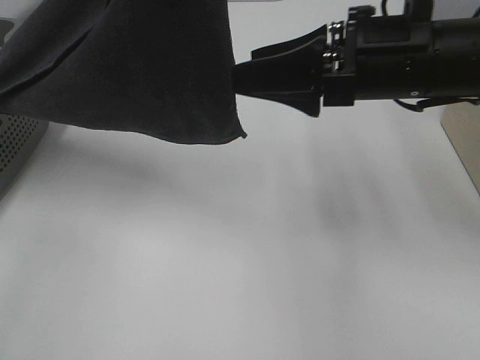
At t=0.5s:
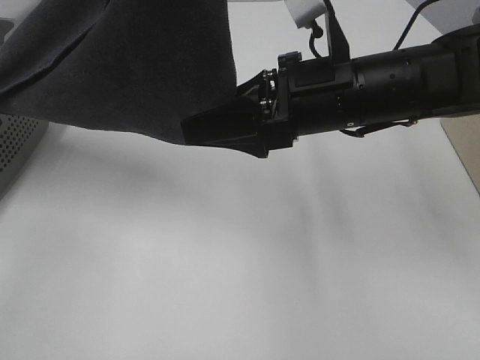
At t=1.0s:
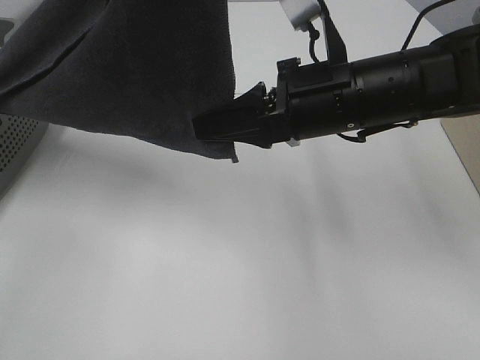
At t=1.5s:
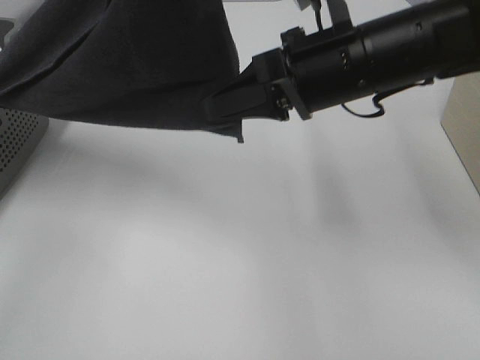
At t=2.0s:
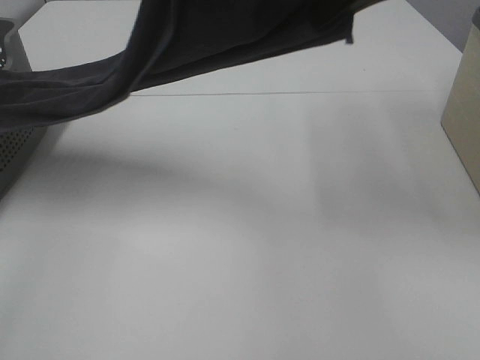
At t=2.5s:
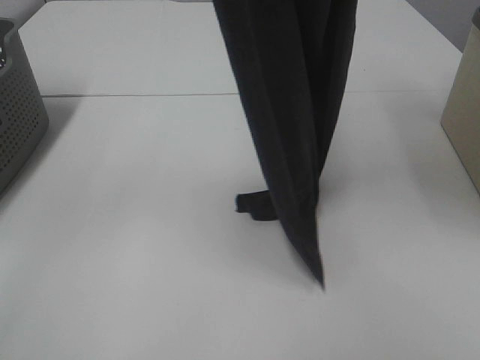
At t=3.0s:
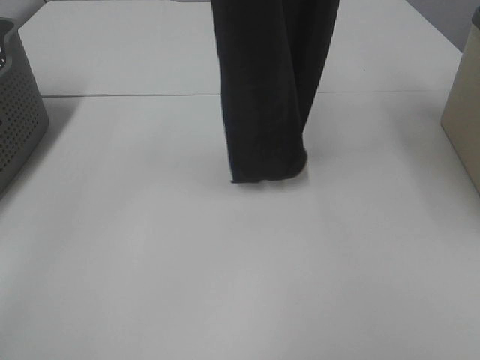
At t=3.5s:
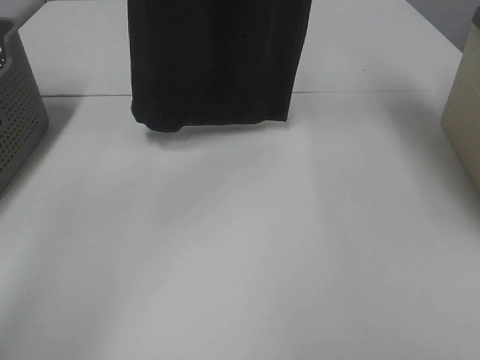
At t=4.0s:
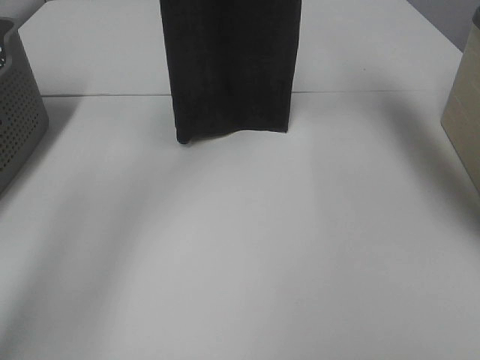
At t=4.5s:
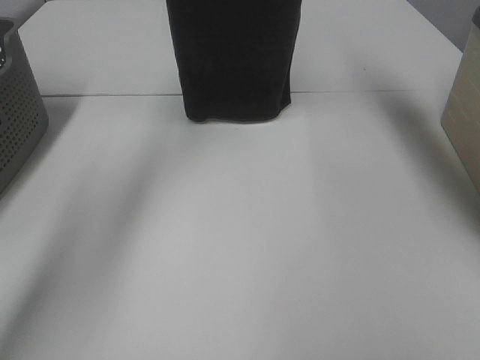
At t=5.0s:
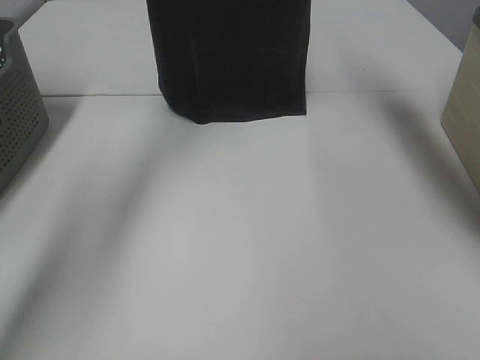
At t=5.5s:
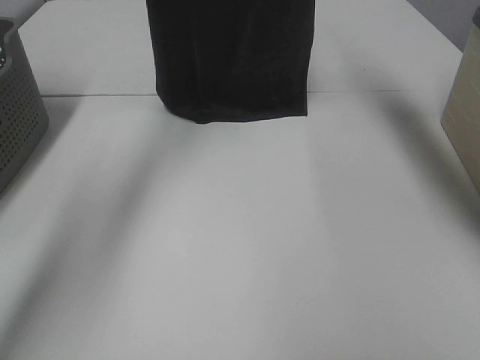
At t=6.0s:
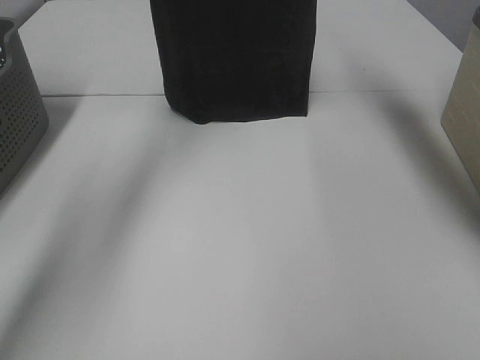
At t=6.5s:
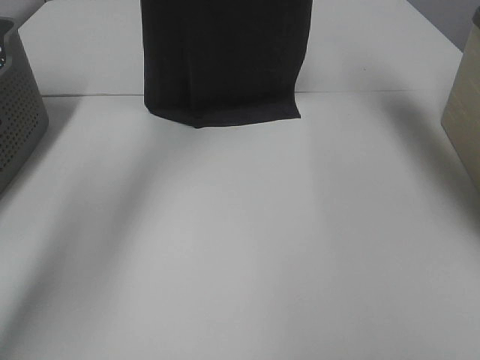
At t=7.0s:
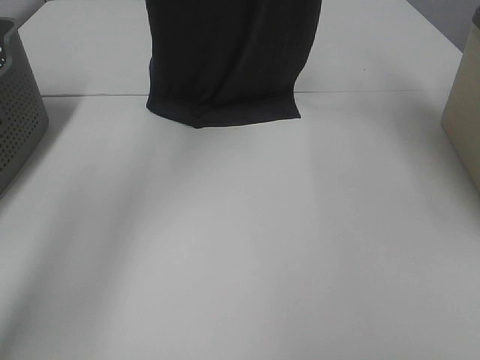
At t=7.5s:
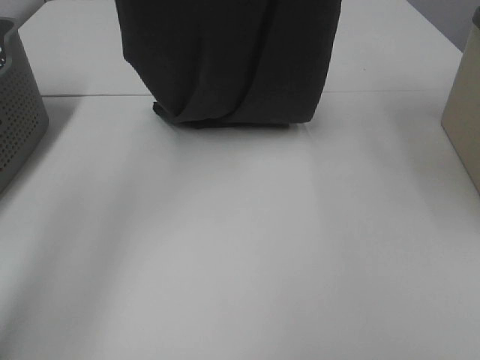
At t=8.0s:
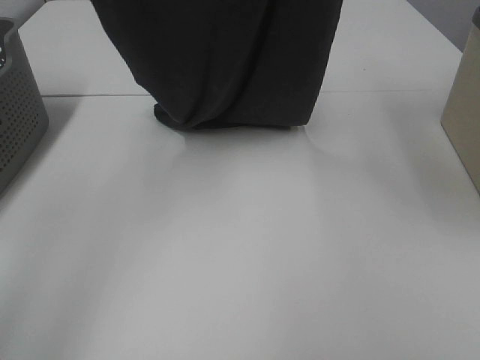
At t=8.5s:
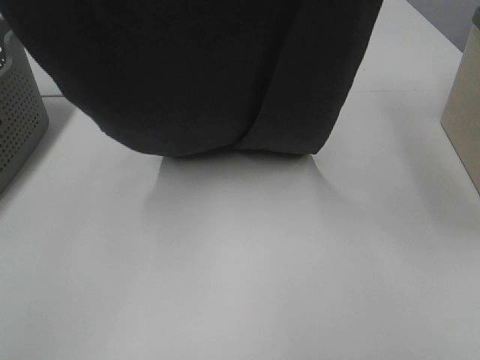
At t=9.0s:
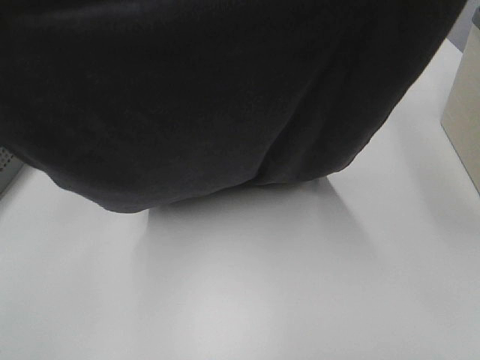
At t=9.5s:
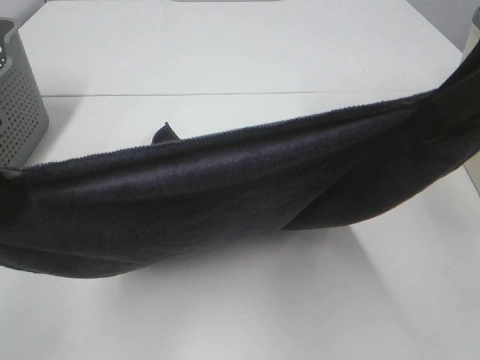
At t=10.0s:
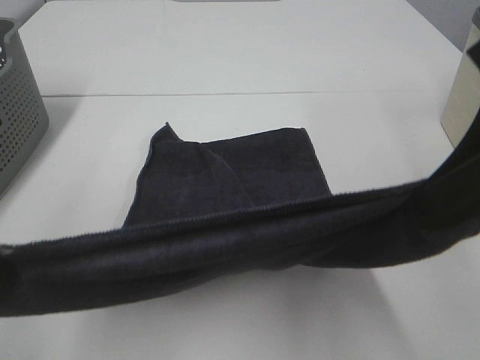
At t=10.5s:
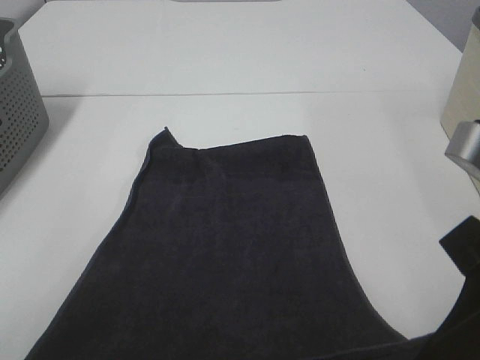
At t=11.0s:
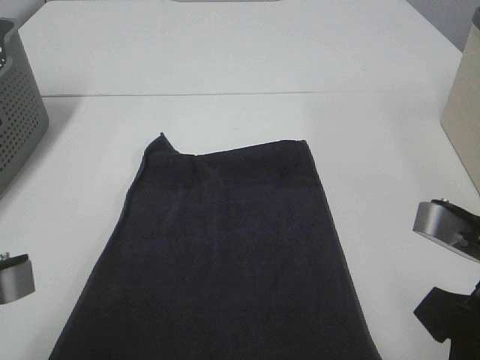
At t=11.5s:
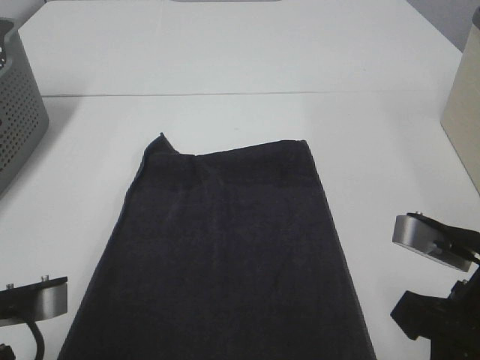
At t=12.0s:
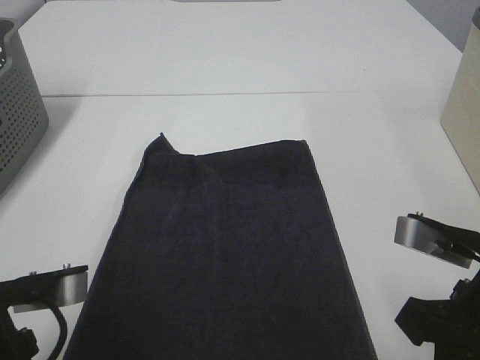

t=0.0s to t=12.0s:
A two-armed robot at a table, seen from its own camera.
Task of the whole recording: Remove the towel and place it.
Step, t=0.0s to t=2.0s: Right hand: grab a corner of the grey towel and straighten it.
Step, t=2.5s to t=8.5s: Left hand: spread the grey towel flat on the table.
Step, t=2.5s to t=8.5s: Right hand: spread the grey towel flat on the table.
t=0.0s to t=2.0s: The right gripper shifts approximately 15 cm upward, and closes up.
t=2.0s to t=4.0s: The right gripper moves forward and upward, some 20 cm; the left gripper shifts approximately 25 cm forward.
t=4.0s to t=6.0s: There are only small adjustments of the grippers.
t=6.0s to t=8.0s: Both grippers move backward, roughly 15 cm.
t=8.0s to t=10.0s: The grippers both shift backward and downward by roughly 25 cm.
t=10.0s to t=12.0s: The grippers both shift downward by some 15 cm.

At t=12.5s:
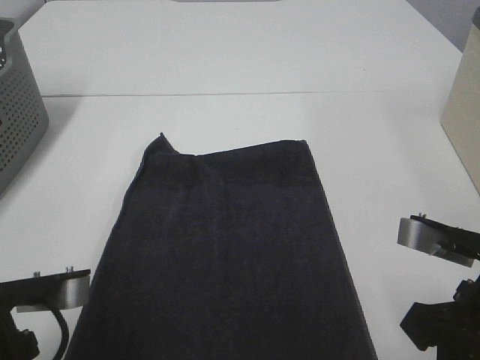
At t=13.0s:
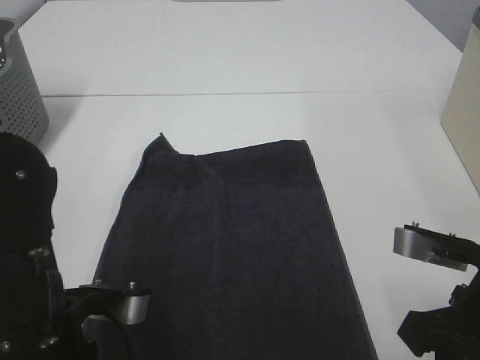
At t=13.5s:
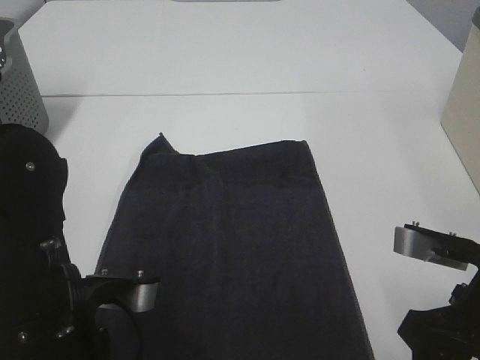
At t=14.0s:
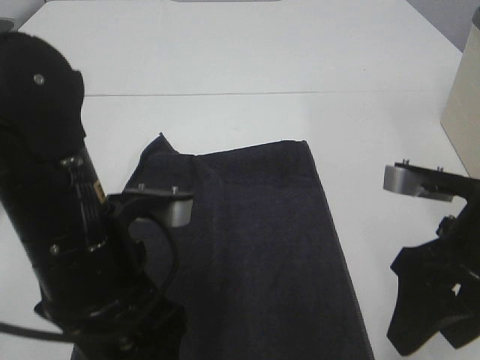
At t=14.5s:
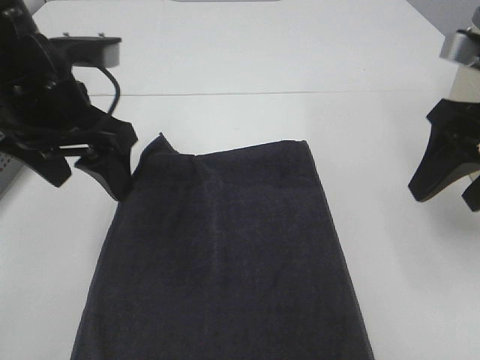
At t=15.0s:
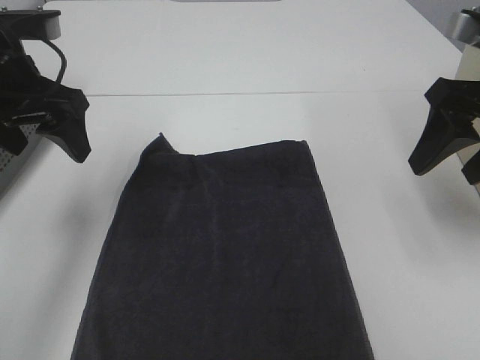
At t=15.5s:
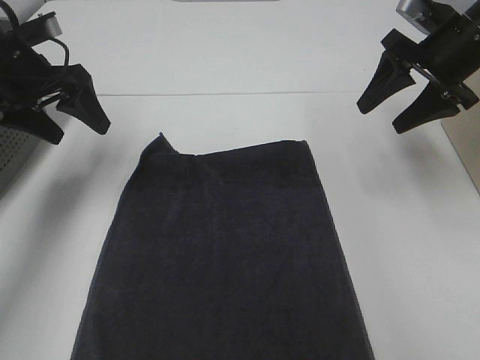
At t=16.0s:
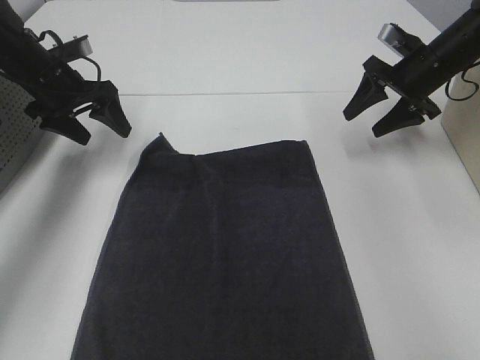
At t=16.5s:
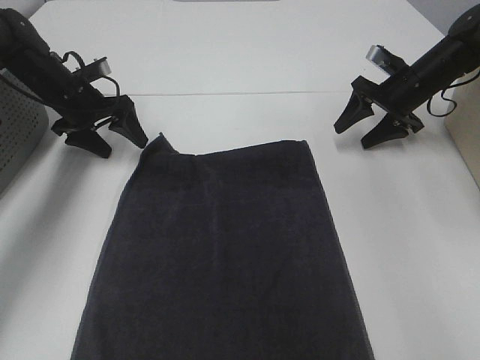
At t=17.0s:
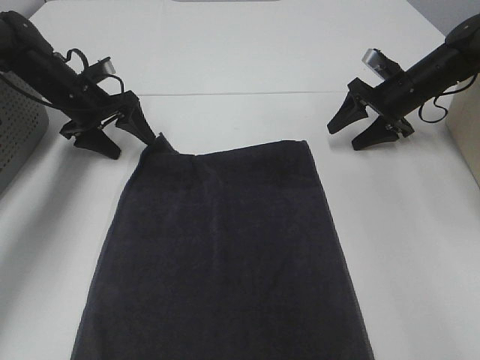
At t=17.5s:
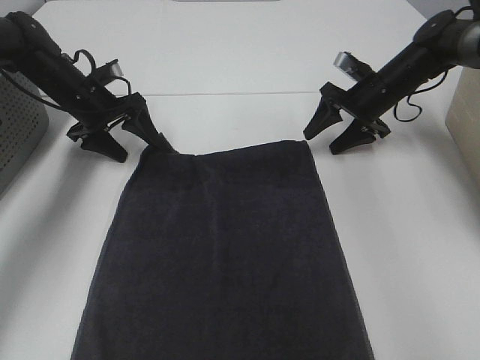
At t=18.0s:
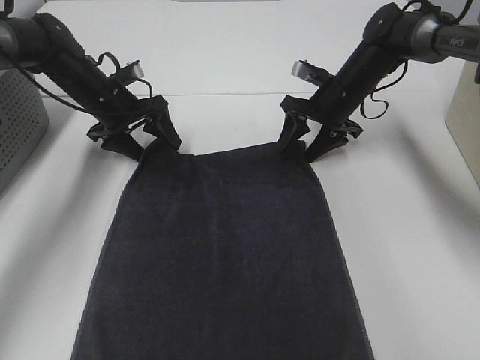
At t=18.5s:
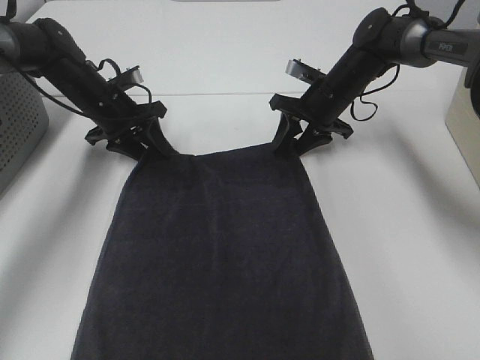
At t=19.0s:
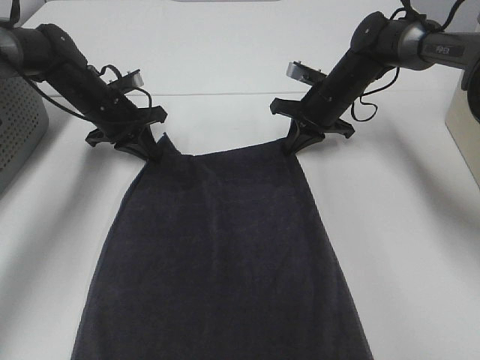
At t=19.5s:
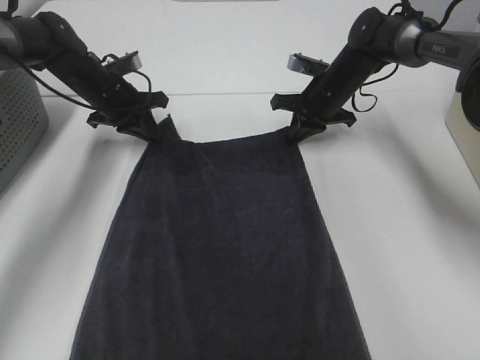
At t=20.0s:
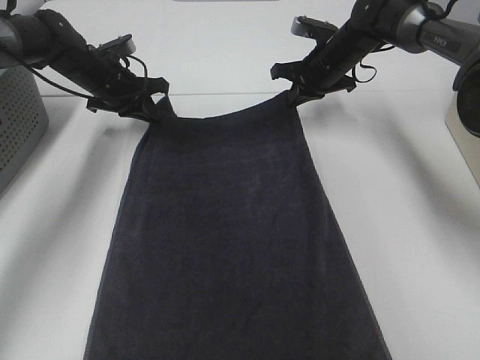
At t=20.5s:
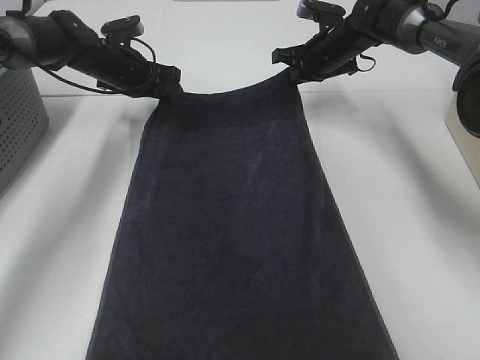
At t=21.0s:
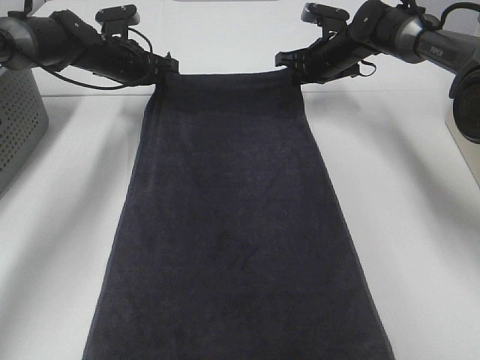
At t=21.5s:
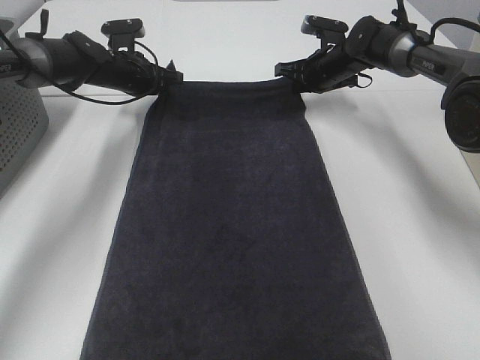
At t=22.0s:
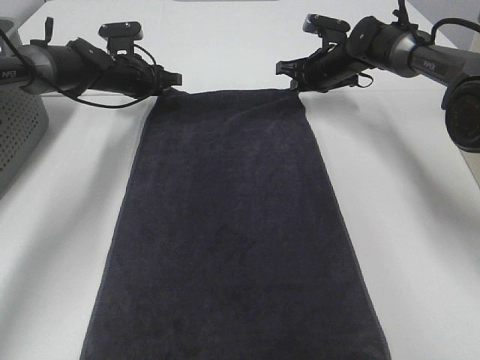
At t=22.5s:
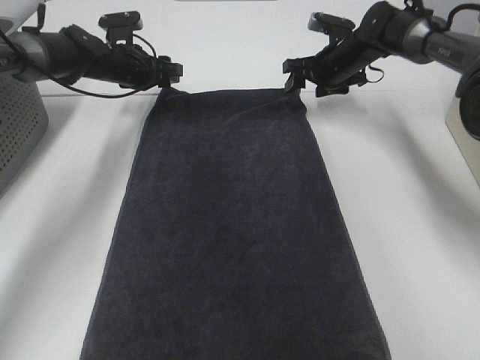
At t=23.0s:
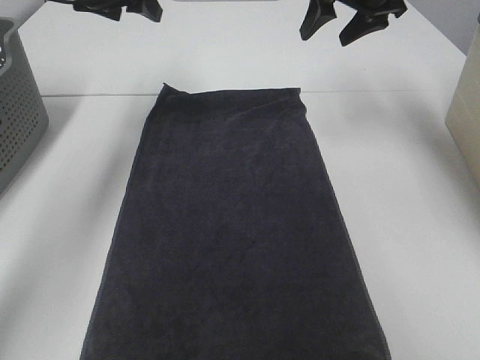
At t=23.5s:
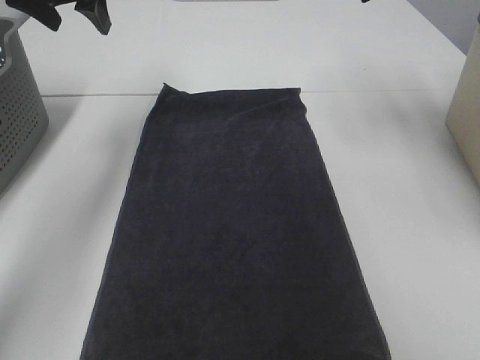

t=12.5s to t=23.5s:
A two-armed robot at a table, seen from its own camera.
Task of the whole recording: Remove the towel and place it.
Step, t=12.5s to t=16.0s: Left hand:adjust the gray towel.
Step, t=12.5s to t=16.0s: Right hand:adjust the gray towel.
t=12.5s to t=14.5s: Both grippers move forward and upward, about 15 cm. The left gripper opens its fingers. The right gripper opens up.
t=14.5s to t=16.0s: The left gripper goes about 25 cm forward, downward and to the left. Meanwhile the right gripper travels forward and downward by roughly 25 cm.
t=16.0s to t=18.0s: The right gripper travels to the left and downward by approximately 15 cm, while the left gripper shifts some 5 cm to the right.
t=18.0s to t=20.0s: The right gripper travels forward by about 5 cm, and closes up. The left gripper closes.
t=21.5s to t=23.5s: Both grippers travel together upward and backward, about 25 cm. The left gripper opens up. Meanwhile the right gripper opens up.

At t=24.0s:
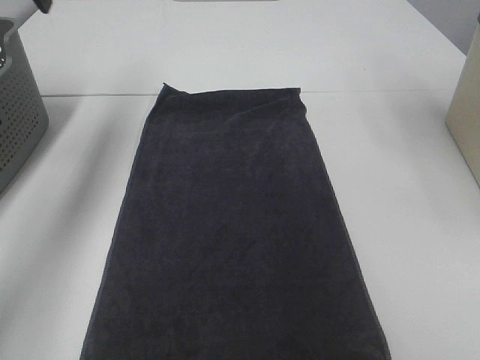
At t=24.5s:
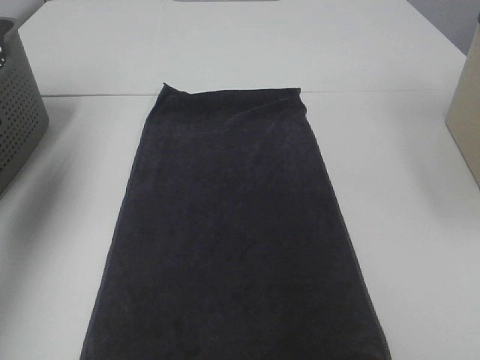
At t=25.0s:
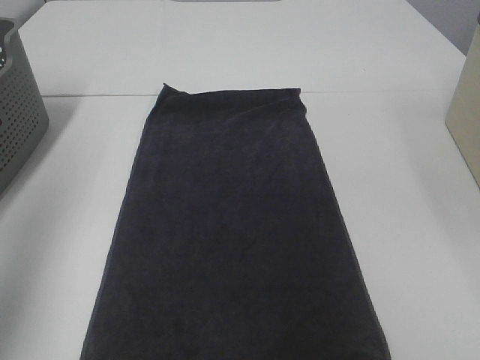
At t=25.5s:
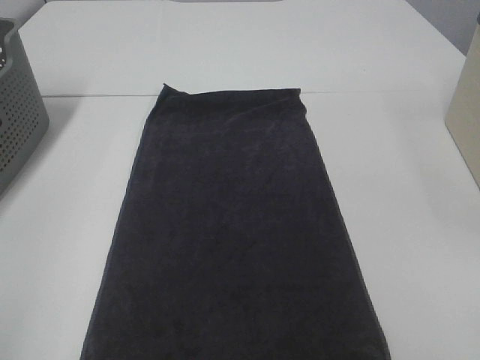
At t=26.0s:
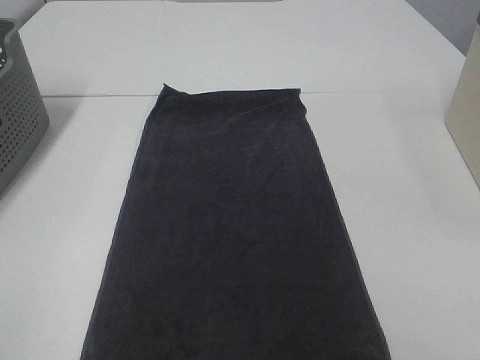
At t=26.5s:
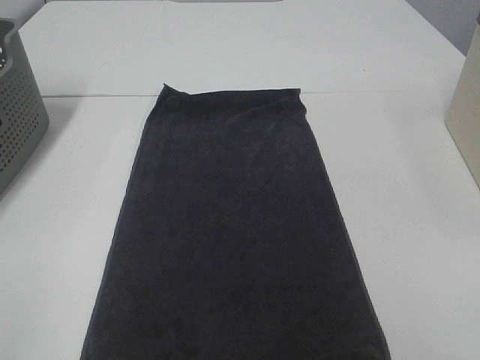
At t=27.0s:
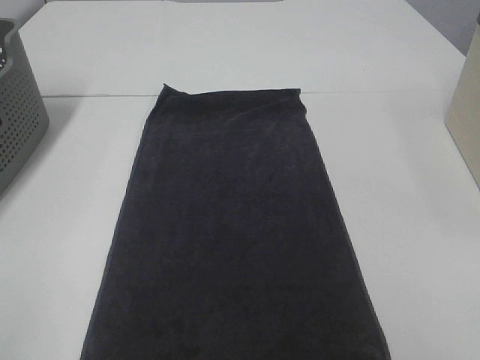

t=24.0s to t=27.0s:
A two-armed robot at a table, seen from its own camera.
Task of the whole recording: Remove the towel and place it.
t=24.0s to t=25.5s: The grippers both shift backward by approximately 40 cm.
